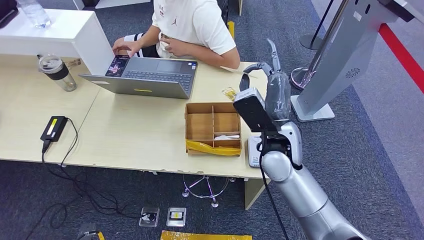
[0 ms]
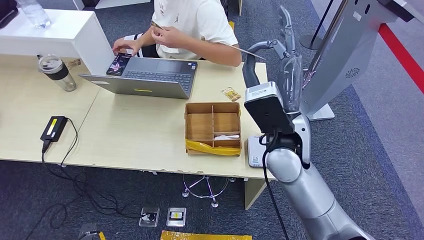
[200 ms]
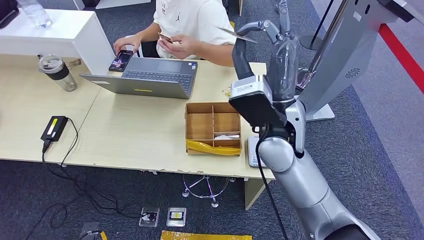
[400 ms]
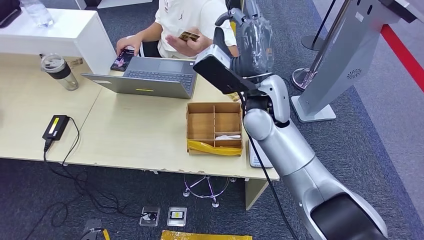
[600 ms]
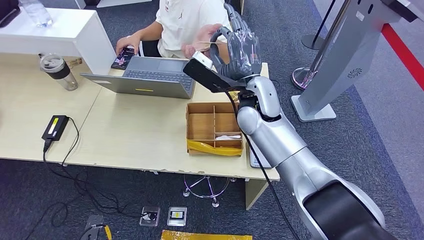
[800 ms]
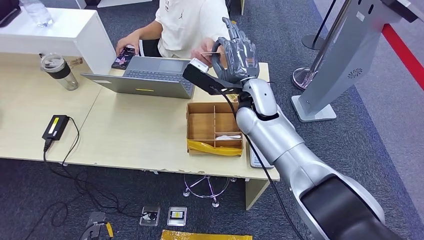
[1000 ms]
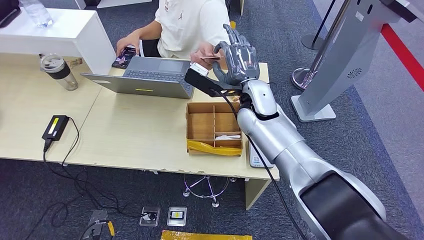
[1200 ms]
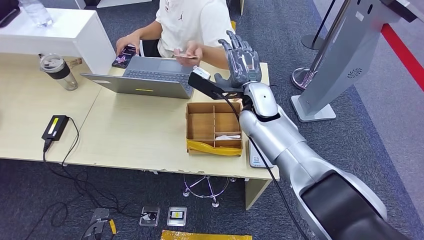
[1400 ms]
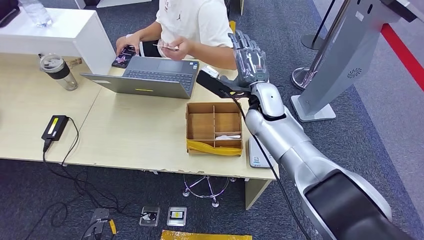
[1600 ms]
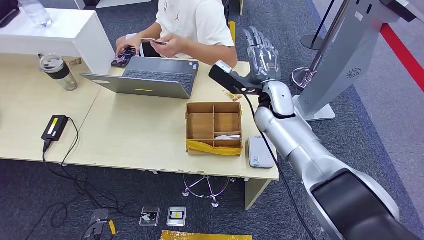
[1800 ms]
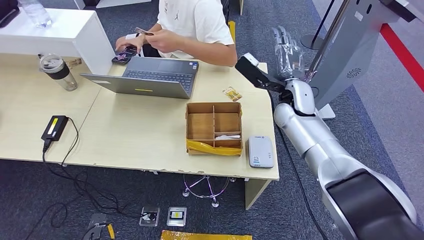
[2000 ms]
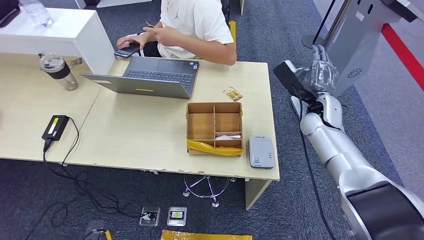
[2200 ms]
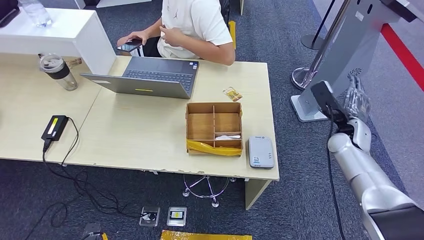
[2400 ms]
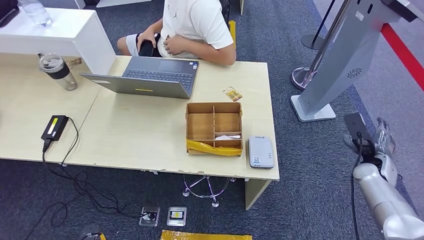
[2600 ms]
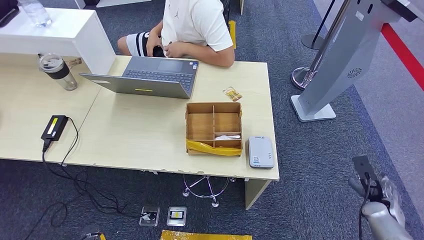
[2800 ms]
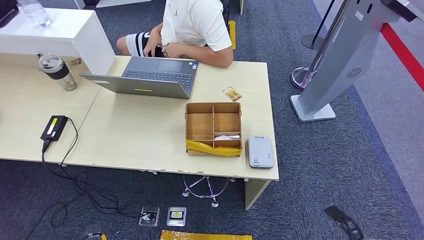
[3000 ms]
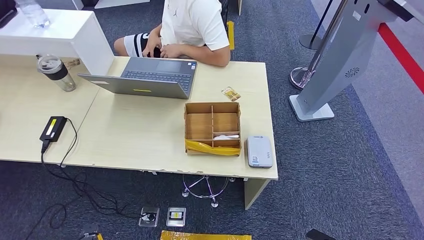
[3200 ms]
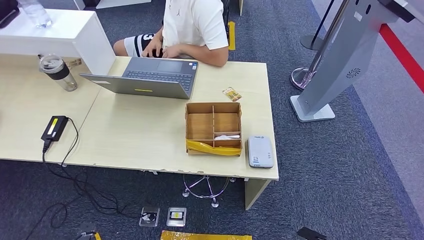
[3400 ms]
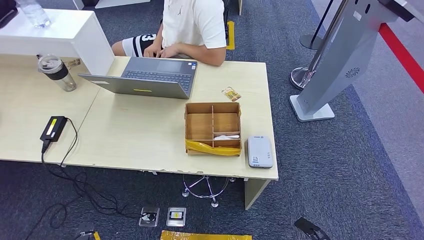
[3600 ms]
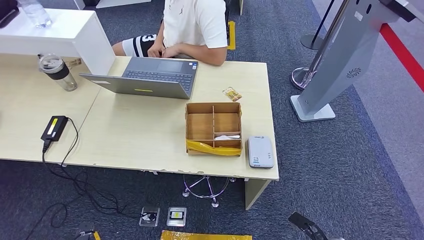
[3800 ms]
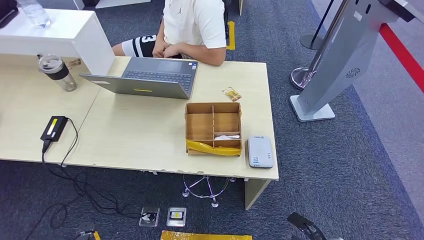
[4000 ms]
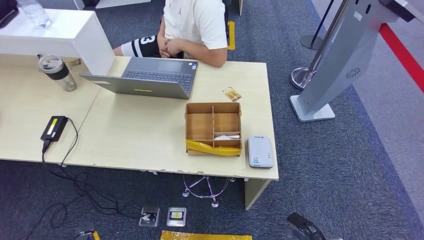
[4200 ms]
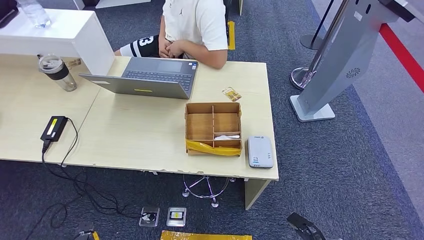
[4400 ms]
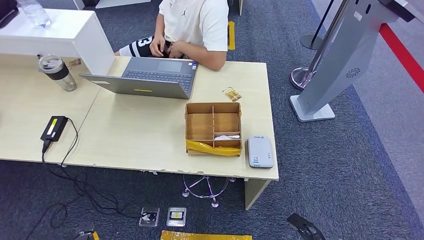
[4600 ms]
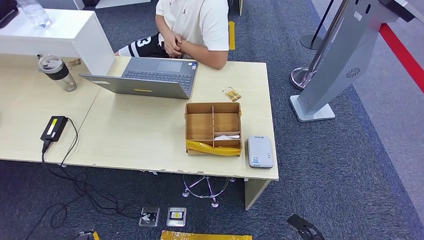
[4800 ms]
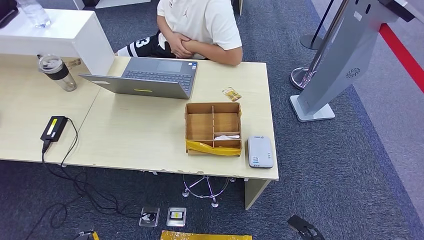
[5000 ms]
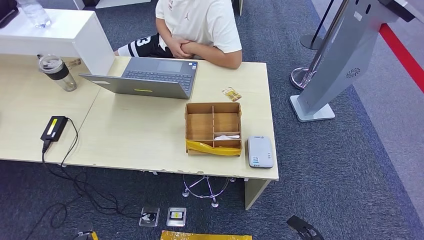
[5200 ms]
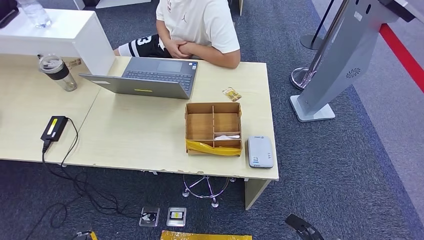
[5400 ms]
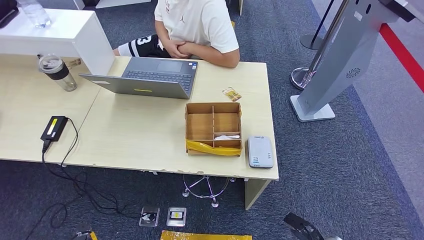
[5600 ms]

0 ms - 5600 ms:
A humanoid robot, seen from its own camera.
Step, 1000 ms - 5600 ms: Hand the room key to the person.
0 ms - 1400 ms: The right hand travels forward by some 10 cm.
1400 ms - 2800 ms: The right hand travels to the right, downward and backward by roughly 50 cm.
2800 ms - 4200 ms: The right hand shifts approximately 15 cm to the left, downward and backward.
4200 ms - 5600 ms: Neither hand changes place.
